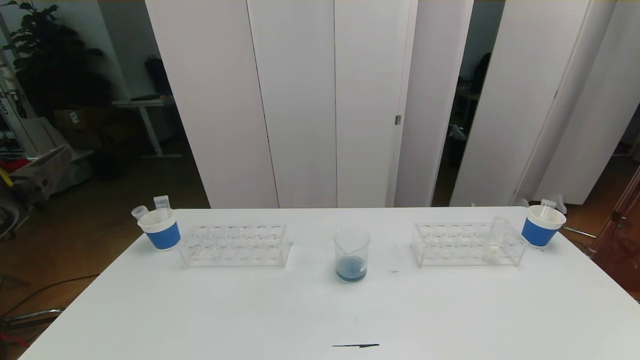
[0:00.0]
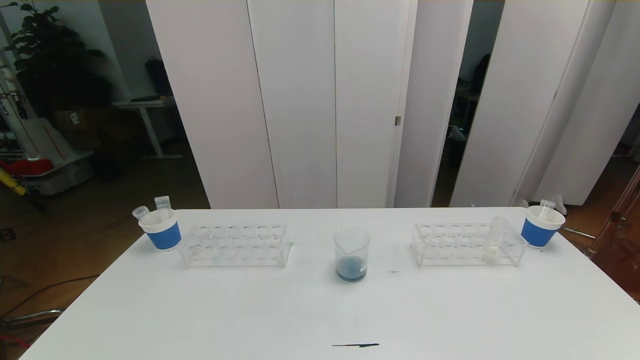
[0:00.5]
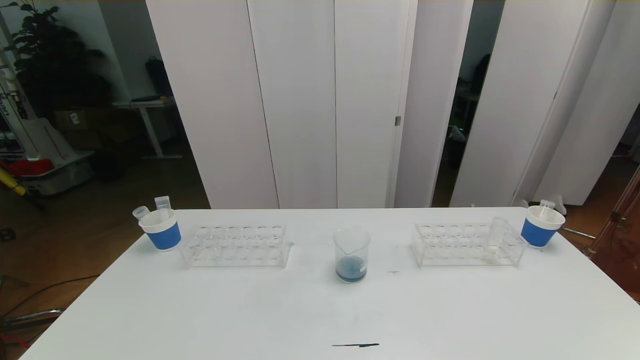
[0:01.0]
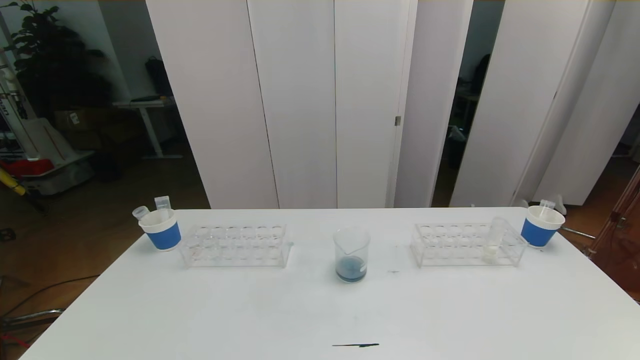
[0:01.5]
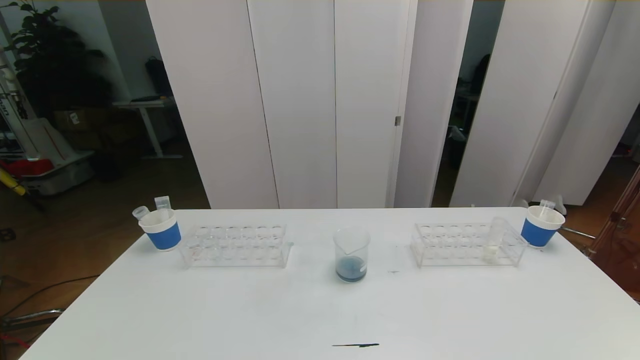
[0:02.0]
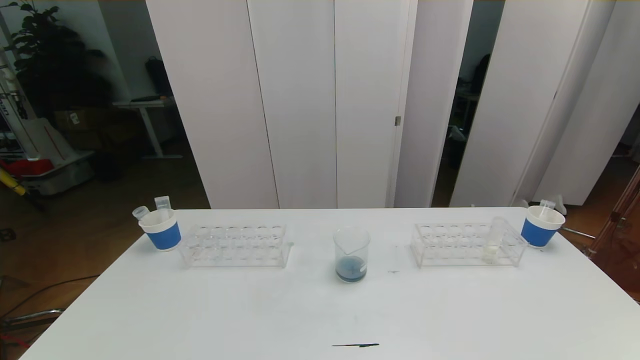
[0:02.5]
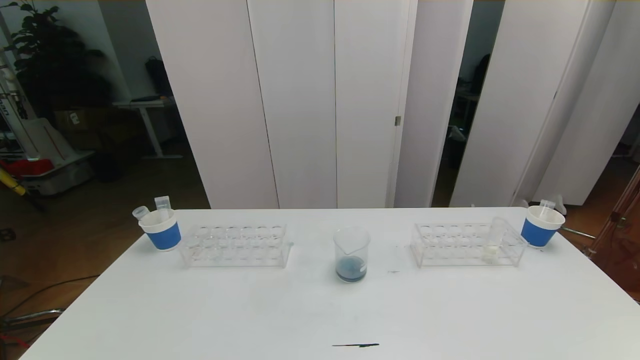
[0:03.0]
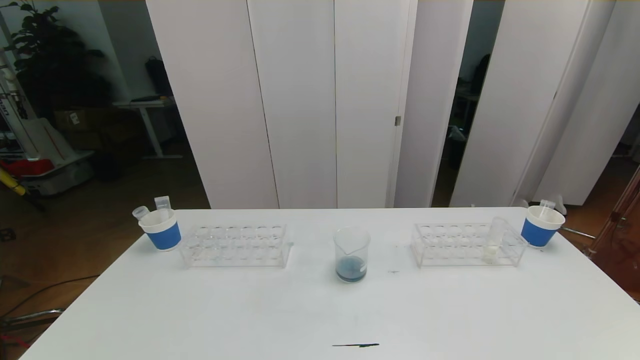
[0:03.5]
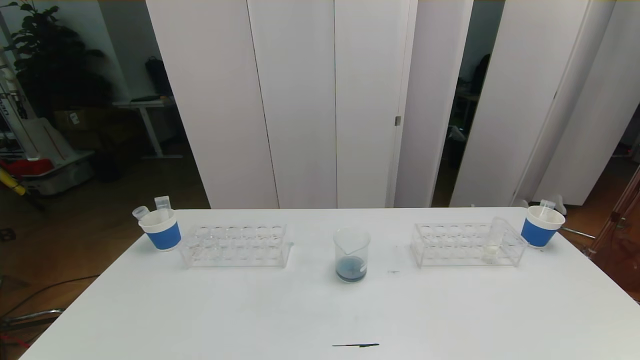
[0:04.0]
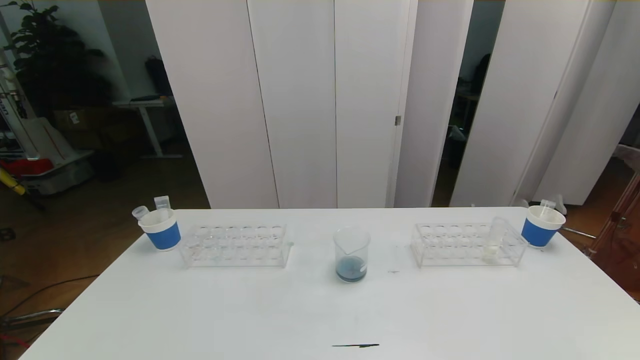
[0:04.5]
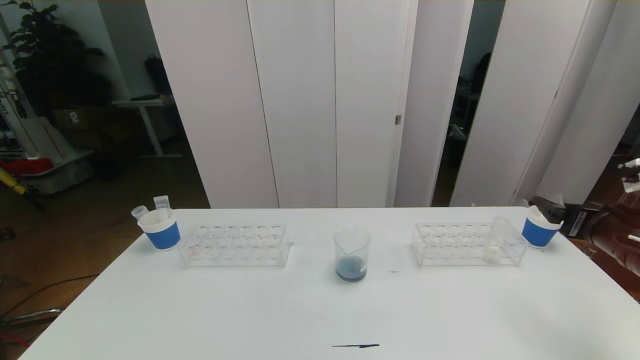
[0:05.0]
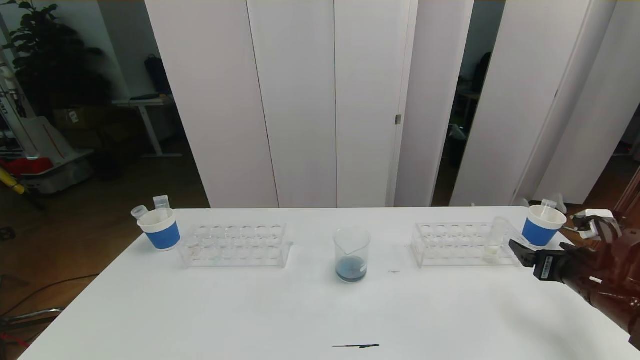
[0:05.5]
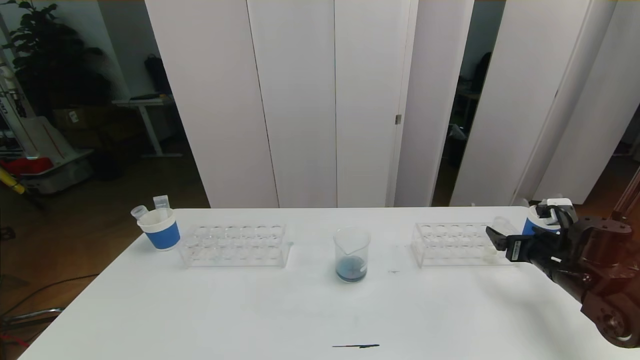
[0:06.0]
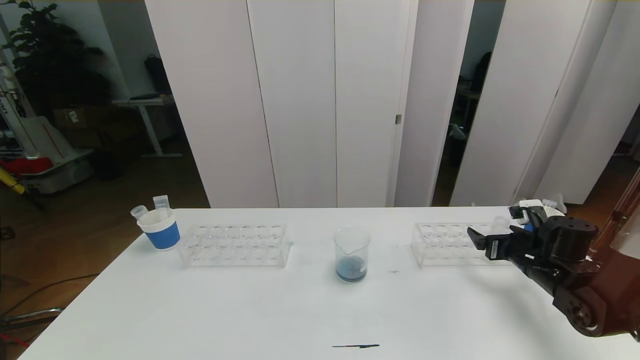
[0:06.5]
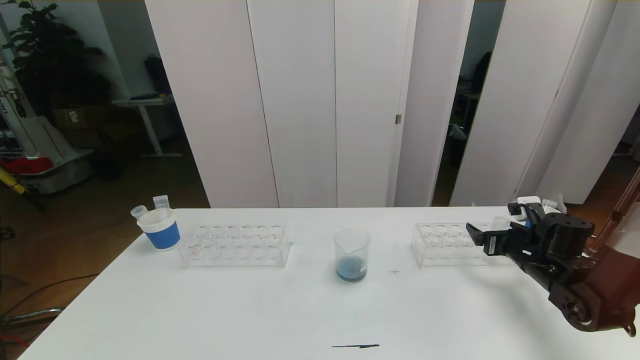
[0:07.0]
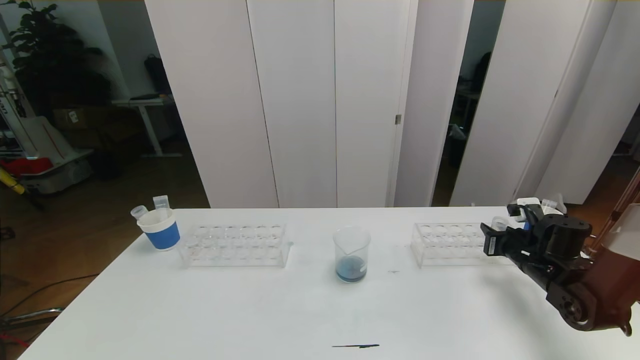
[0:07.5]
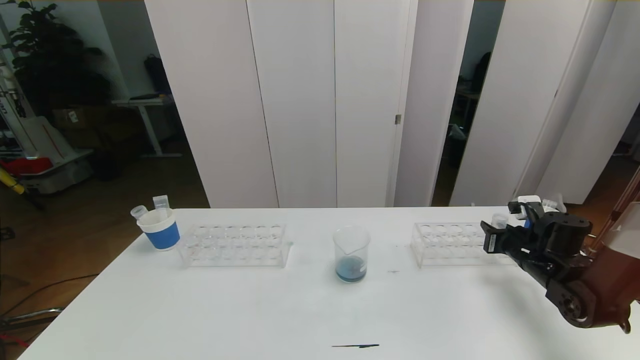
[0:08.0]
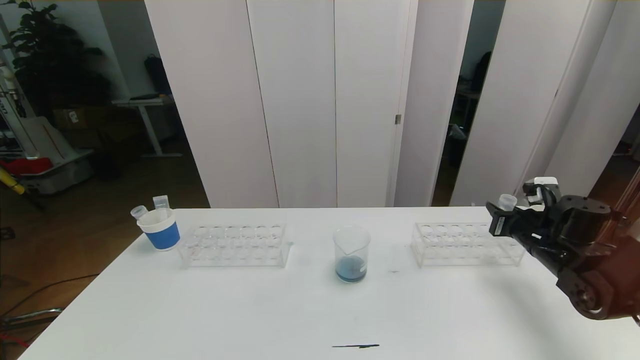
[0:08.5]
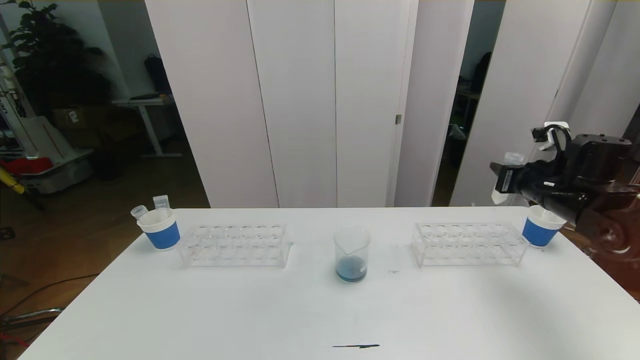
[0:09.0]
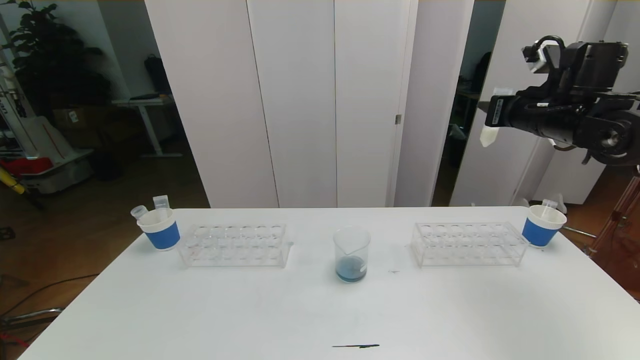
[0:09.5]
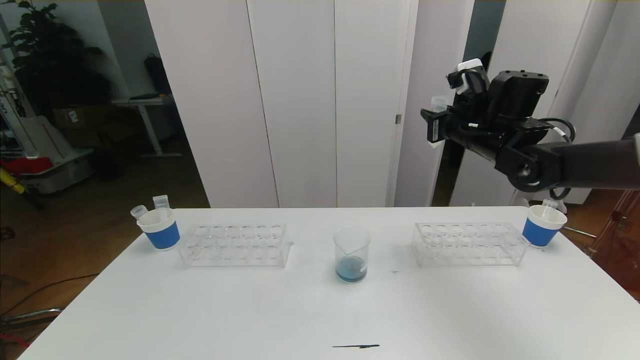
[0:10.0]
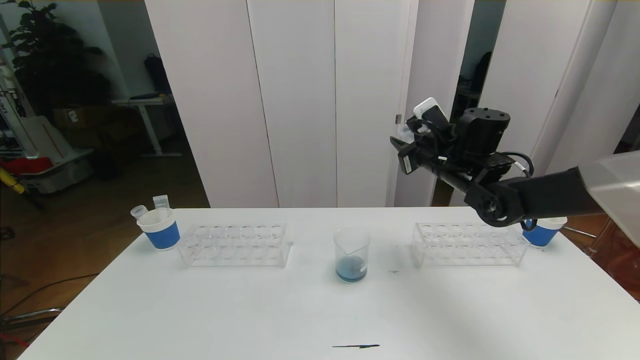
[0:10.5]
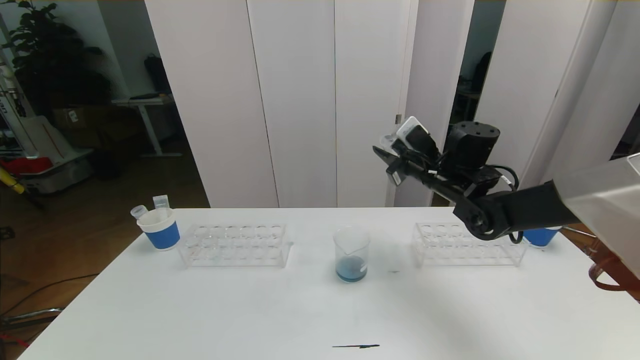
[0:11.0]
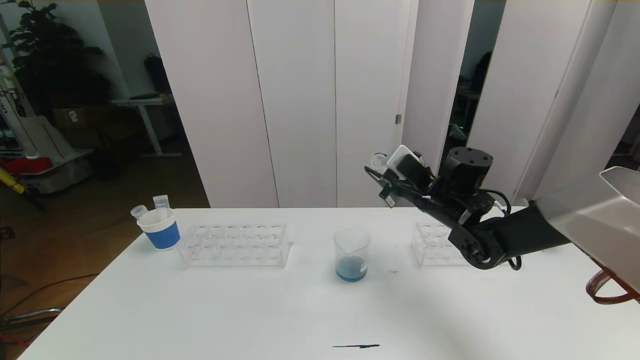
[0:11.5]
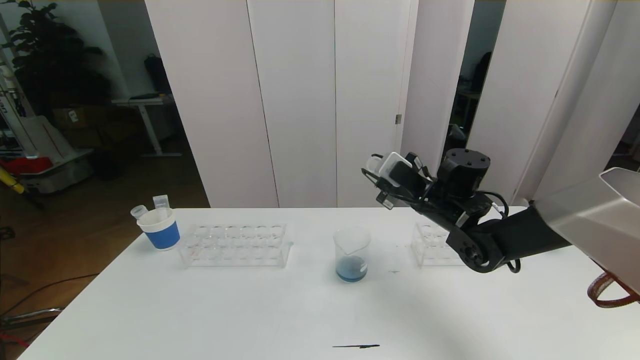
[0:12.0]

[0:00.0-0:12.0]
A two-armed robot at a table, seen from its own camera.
Task of the whole recording: pick up the test tube with red pigment the test tube with blue pigment and the test tube with white pigment by grippers and pour them into the beaker.
4.0 to 6.0 s: The right gripper shifts some 35 cm forward and downward.
6.0 to 8.0 s: The right gripper moves about 5 cm, and closes up.
8.0 to 10.0 s: The right gripper is displaced upward and to the left by some 25 cm.
10.0 to 12.0 s: The right gripper is displaced downward and to the left by some 10 cm.

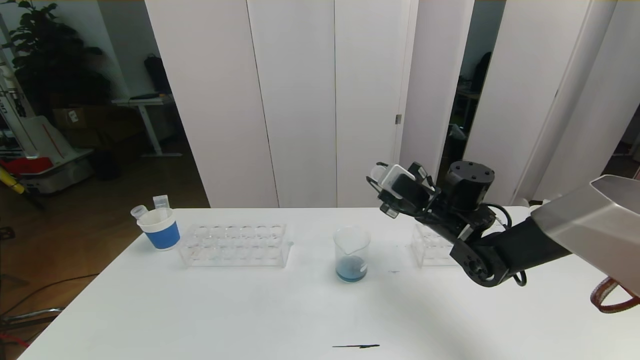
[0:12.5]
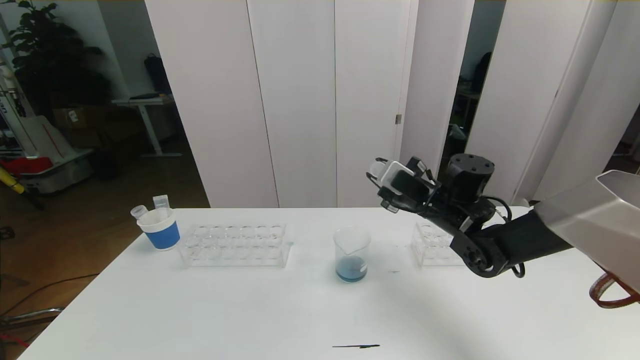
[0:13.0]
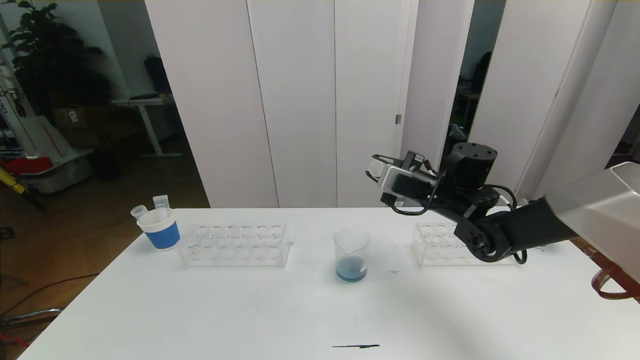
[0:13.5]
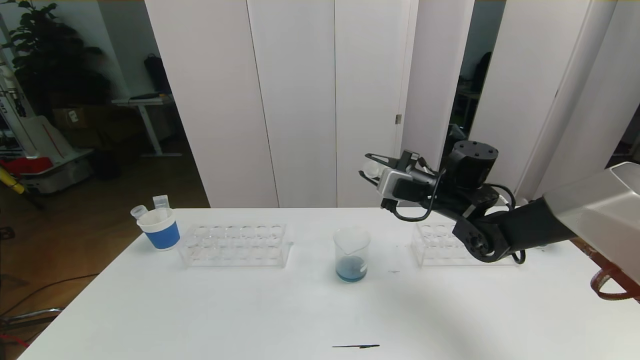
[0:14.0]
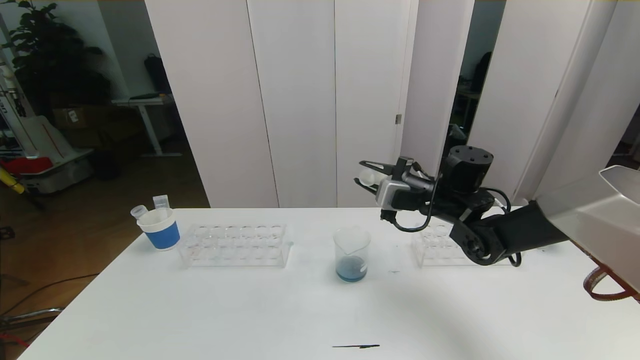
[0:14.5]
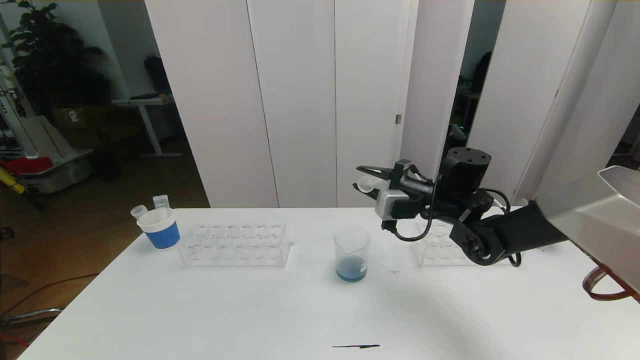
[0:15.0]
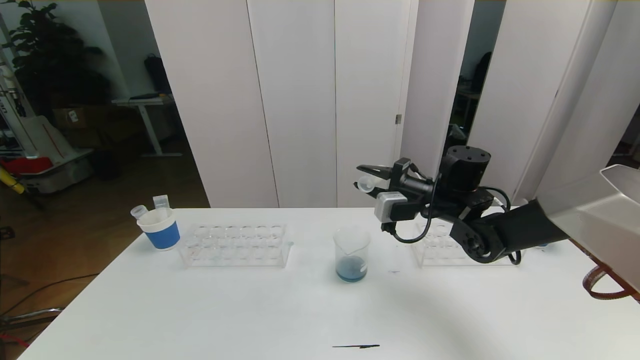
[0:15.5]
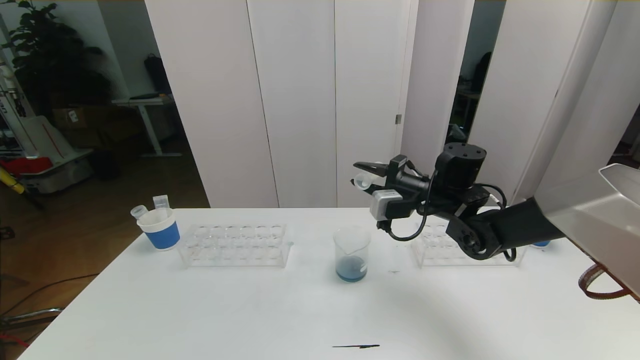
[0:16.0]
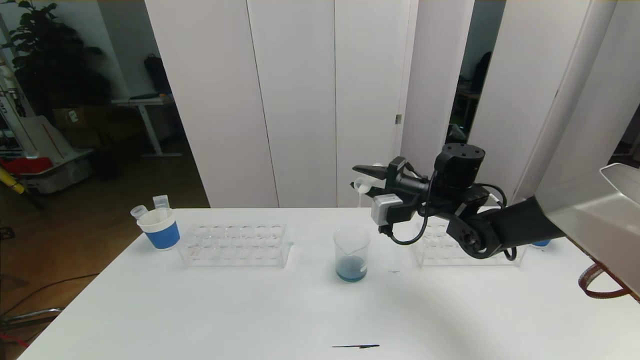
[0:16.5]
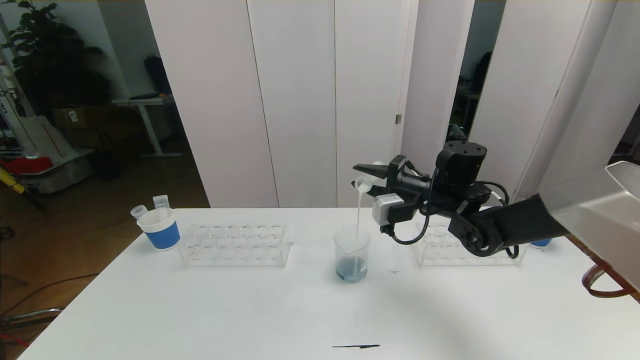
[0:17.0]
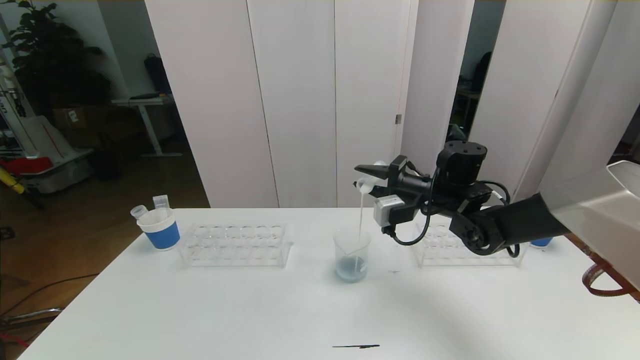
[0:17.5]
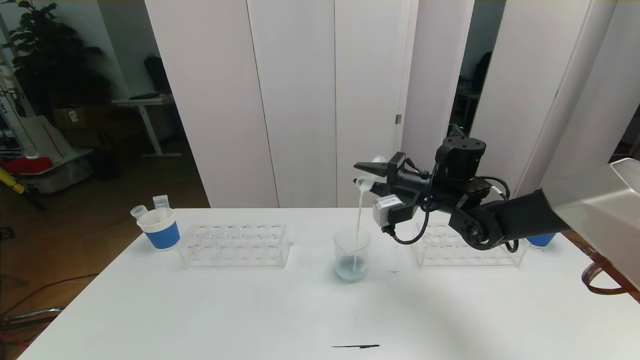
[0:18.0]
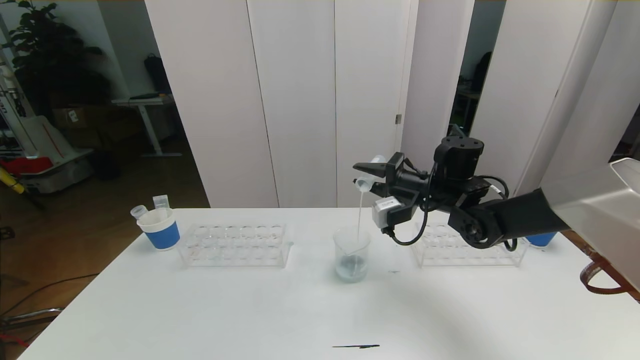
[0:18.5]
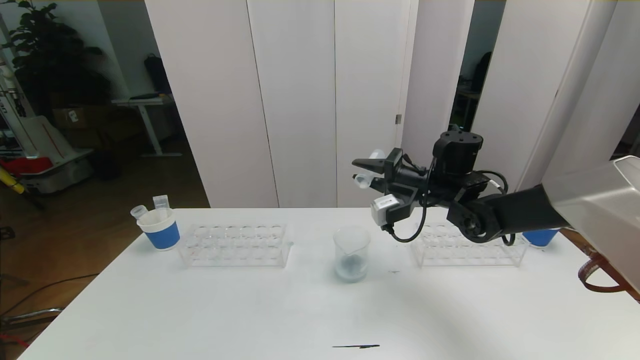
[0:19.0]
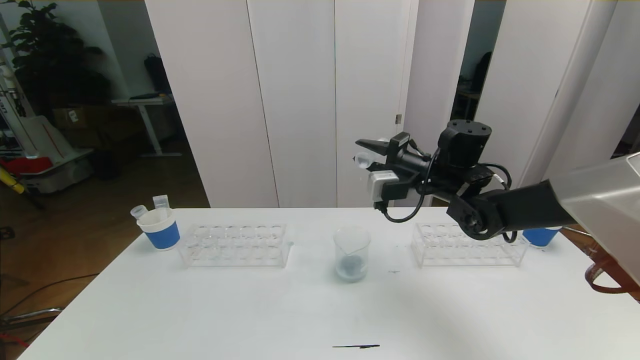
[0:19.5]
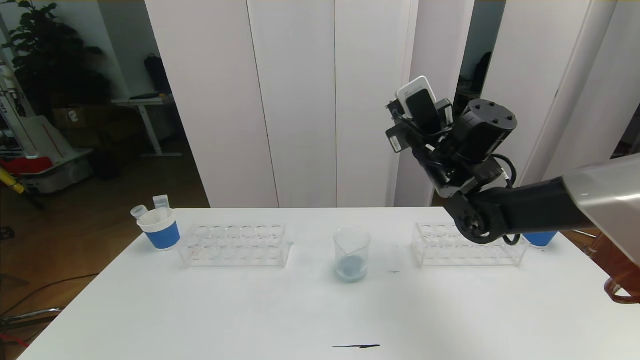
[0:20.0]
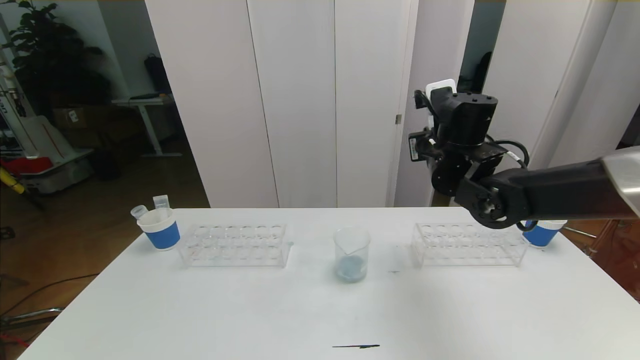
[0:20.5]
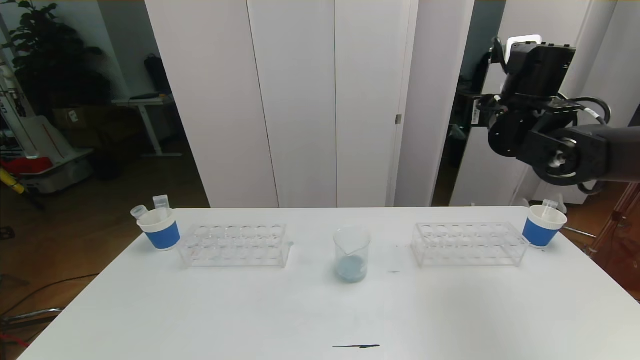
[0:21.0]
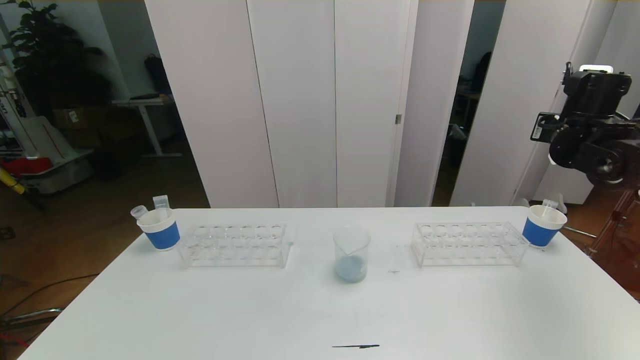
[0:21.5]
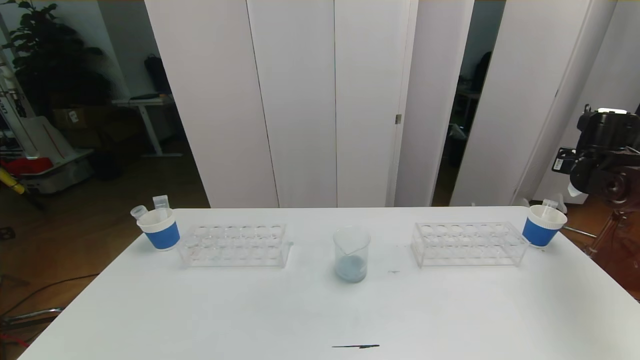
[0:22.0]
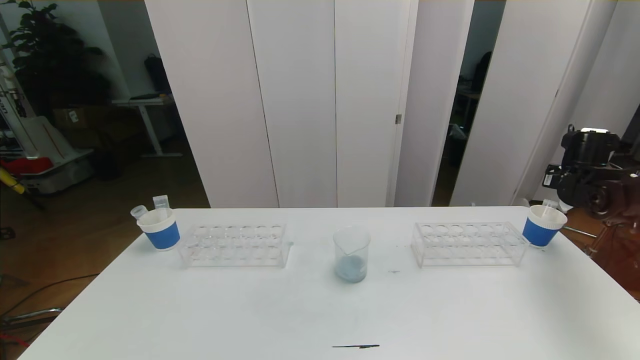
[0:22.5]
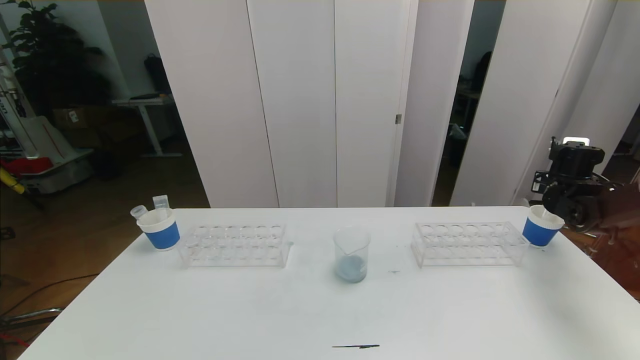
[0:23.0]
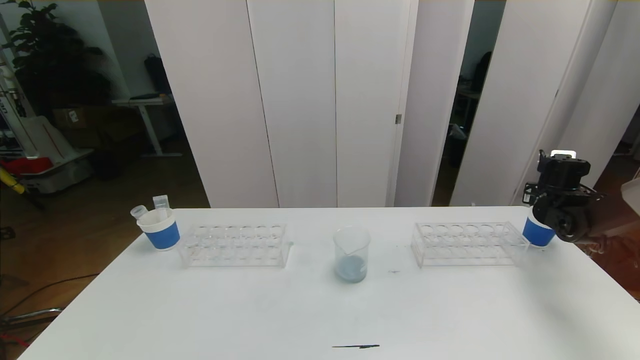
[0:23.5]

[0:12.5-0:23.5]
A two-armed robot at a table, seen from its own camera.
Task of the whole recording: pick up the test tube with red pigment the test tube with blue pigment and the test tube with white pigment by grippers and pour them into the beaker.
14.5 to 16.0 s: The grippers move only a little.
16.0 to 18.0 s: There are only small adjustments of the grippers.
18.0 to 20.0 s: The right gripper is displaced upward by approximately 5 cm.
20.0 to 21.5 s: The right gripper is displaced to the right by roughly 20 cm.
21.5 to 23.5 s: The right gripper heads downward and to the right, covering roughly 15 cm.
